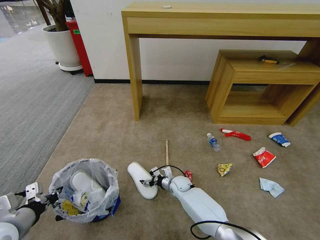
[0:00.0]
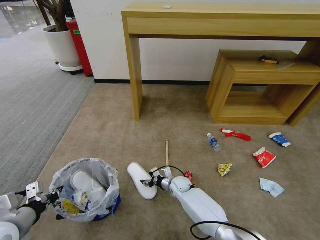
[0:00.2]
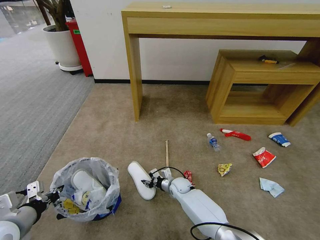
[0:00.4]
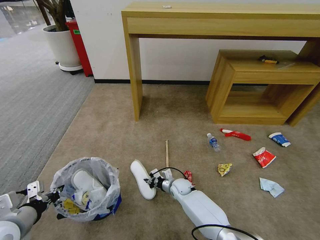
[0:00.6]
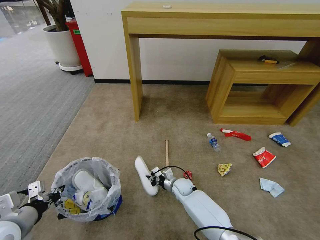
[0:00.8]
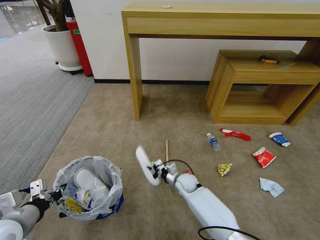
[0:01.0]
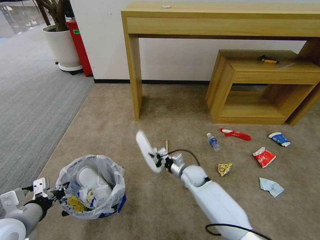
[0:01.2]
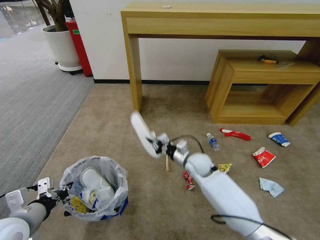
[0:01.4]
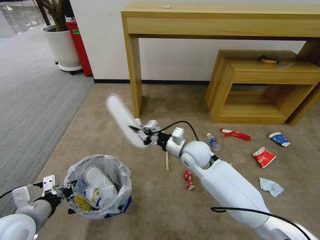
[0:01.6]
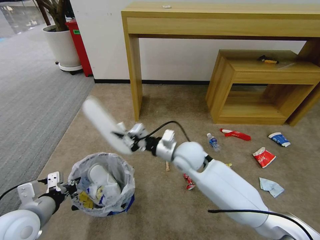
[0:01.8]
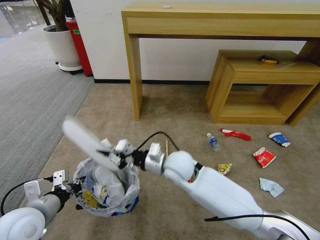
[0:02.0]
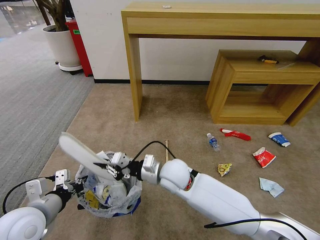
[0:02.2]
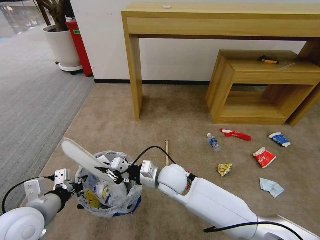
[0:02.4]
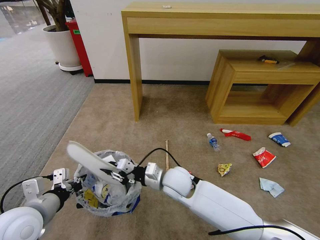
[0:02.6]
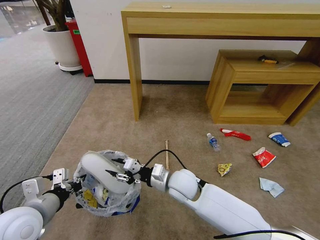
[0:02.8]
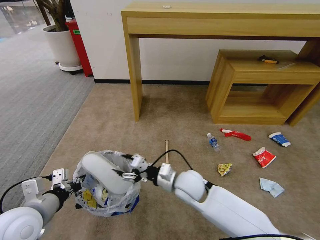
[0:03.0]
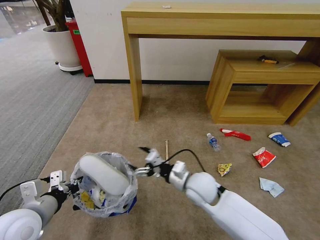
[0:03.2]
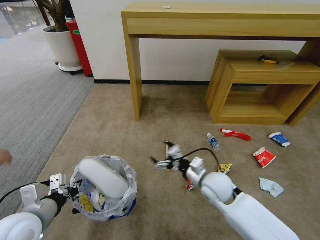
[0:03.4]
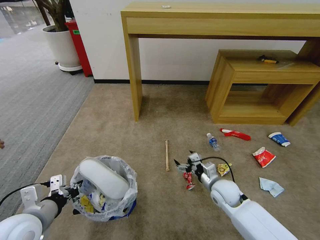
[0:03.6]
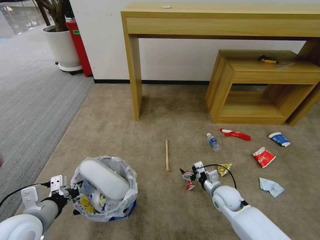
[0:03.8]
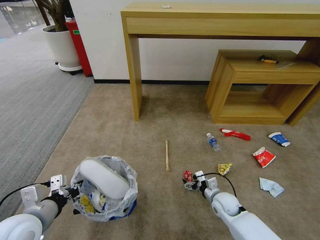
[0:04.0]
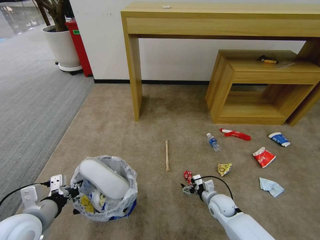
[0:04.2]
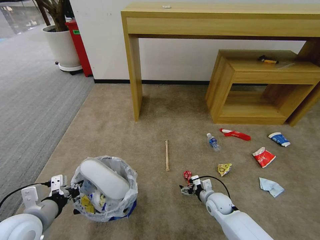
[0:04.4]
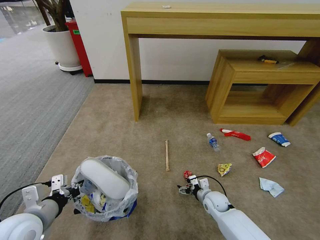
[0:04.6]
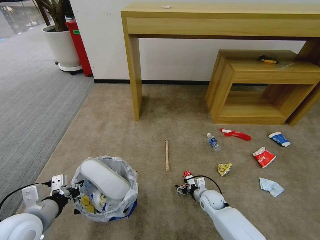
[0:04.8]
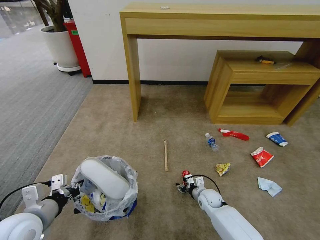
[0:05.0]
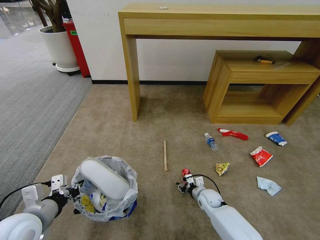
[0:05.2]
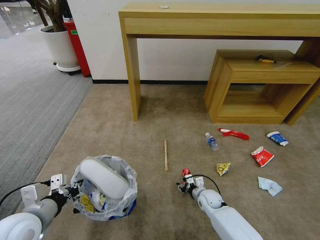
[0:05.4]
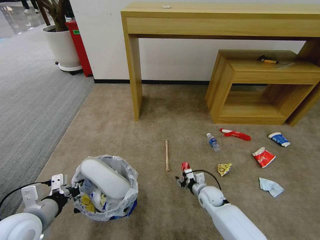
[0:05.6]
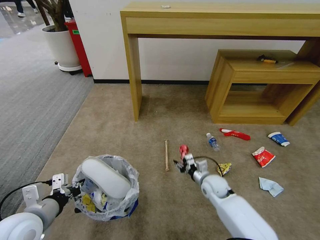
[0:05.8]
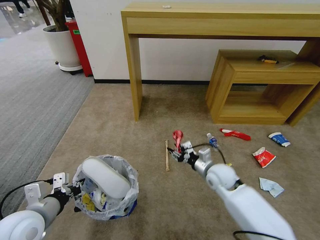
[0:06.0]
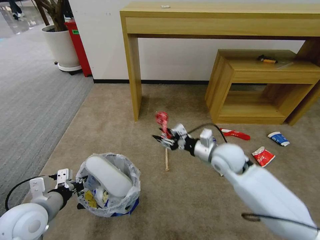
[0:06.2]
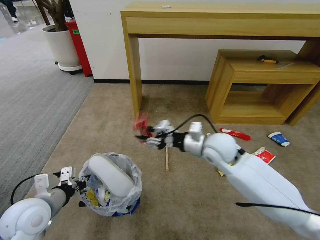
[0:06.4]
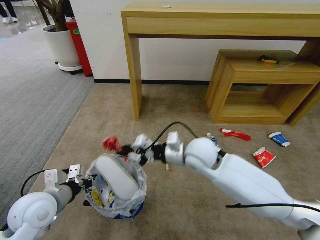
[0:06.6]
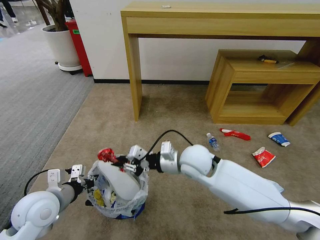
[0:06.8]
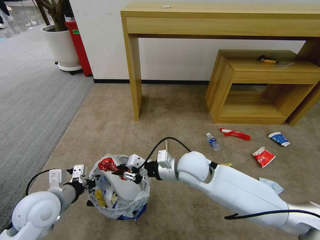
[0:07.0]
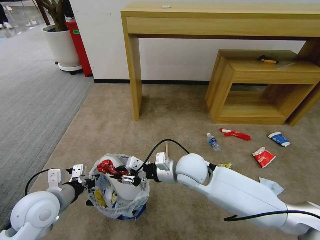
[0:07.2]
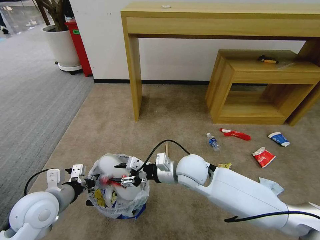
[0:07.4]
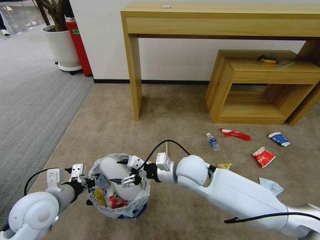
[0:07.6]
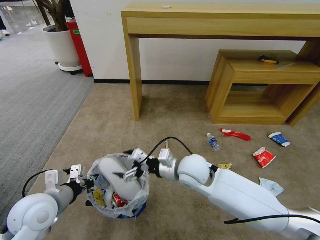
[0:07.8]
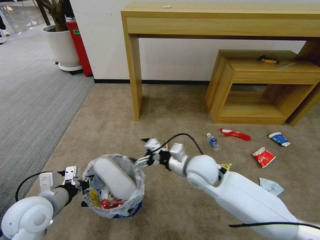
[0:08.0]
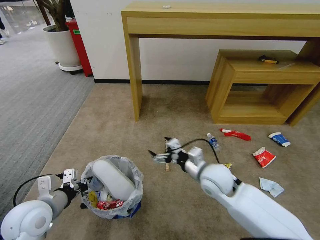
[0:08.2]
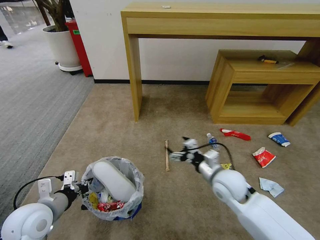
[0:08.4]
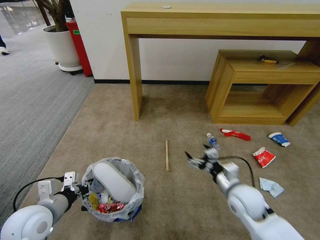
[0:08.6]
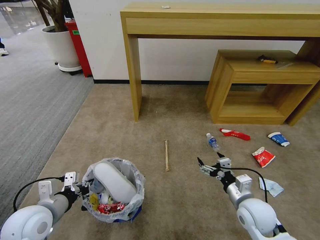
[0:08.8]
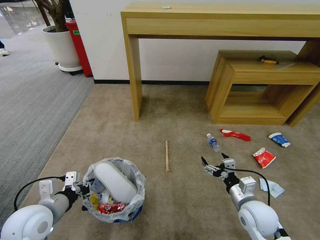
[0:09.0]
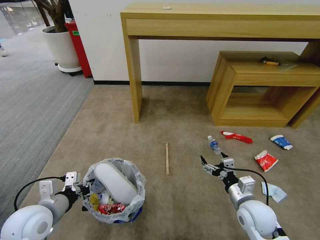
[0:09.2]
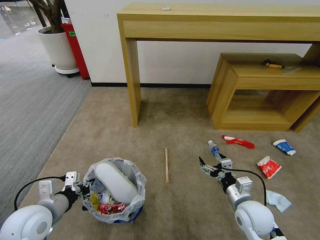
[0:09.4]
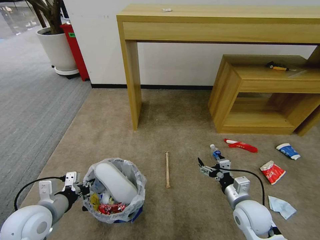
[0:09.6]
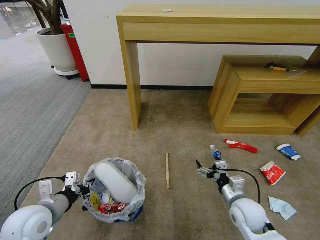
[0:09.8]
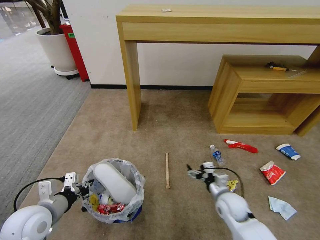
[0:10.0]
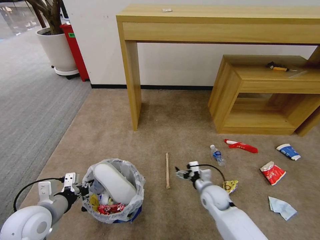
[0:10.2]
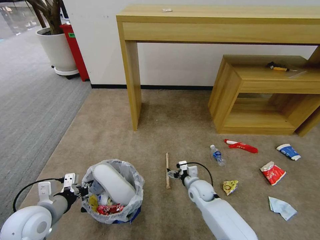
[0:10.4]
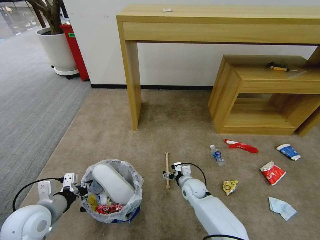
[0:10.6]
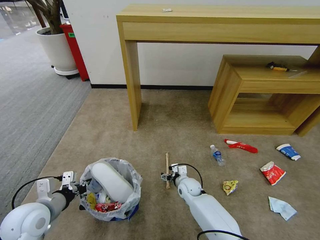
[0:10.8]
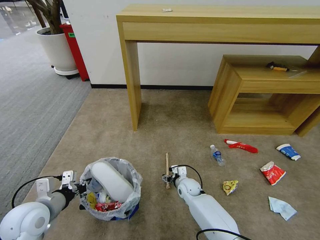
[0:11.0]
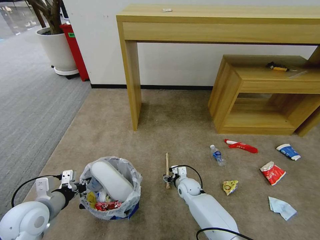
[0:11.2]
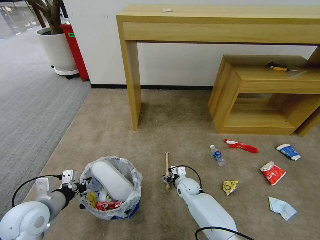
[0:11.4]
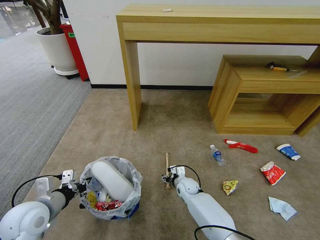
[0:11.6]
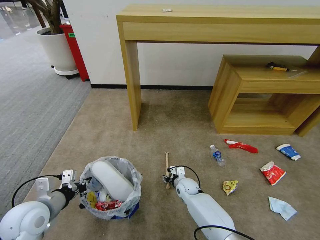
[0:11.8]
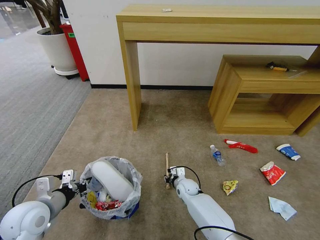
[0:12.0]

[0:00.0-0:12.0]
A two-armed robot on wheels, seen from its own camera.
Task of the whole recording: Pick up the trash bin and place the garbage on the floor into it.
0:00.0 to 0:01.6: The right gripper shifts about 25 cm upward, and closes up.
0:01.6 to 0:03.0: The right gripper shifts approximately 10 cm backward, and opens up.
0:03.0 to 0:04.4: The right gripper goes some 25 cm downward and to the right.
0:04.4 to 0:06.0: The right gripper is displaced upward by roughly 15 cm, and closes up.
0:06.0 to 0:07.6: The right gripper moves to the left and upward, some 15 cm.
0:07.6 to 0:09.0: The right gripper shifts about 25 cm to the right, downward and backward.
0:09.0 to 0:10.4: The right gripper moves to the left, forward and downward, some 20 cm.
0:10.4 to 0:12.0: The right gripper heads downward, covering roughly 5 cm, and closes up.

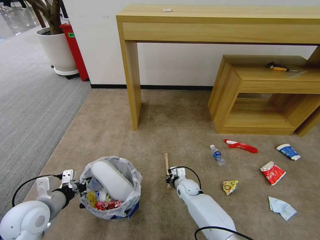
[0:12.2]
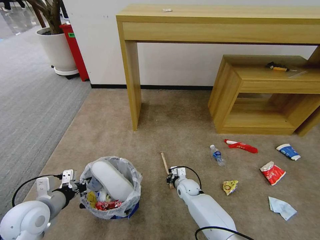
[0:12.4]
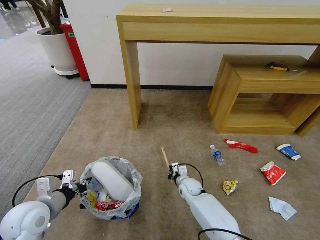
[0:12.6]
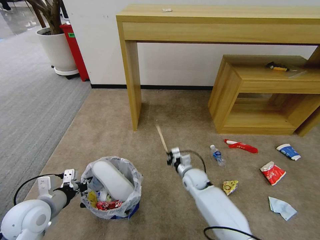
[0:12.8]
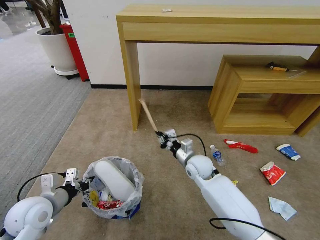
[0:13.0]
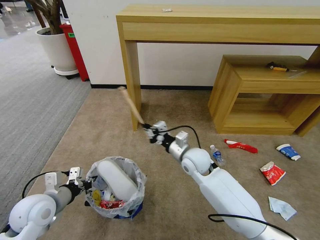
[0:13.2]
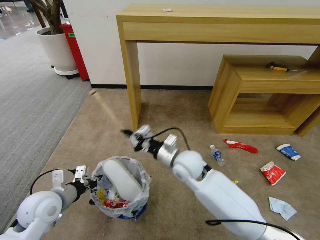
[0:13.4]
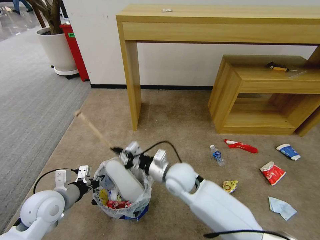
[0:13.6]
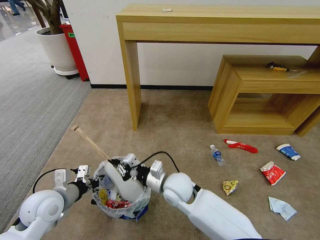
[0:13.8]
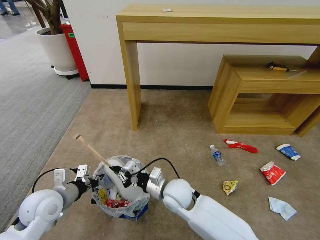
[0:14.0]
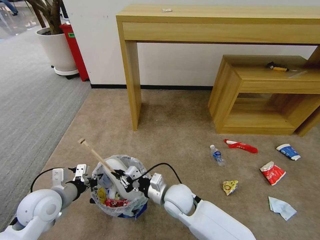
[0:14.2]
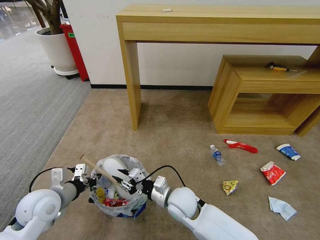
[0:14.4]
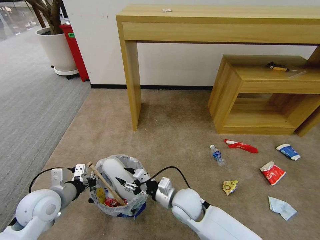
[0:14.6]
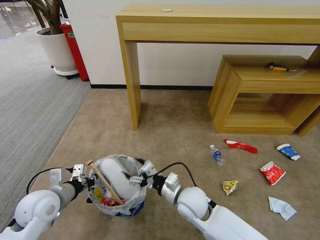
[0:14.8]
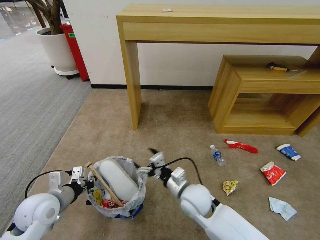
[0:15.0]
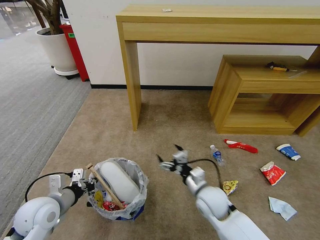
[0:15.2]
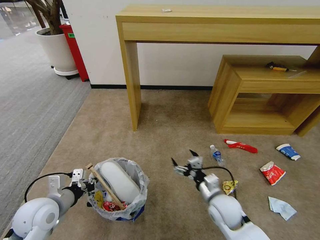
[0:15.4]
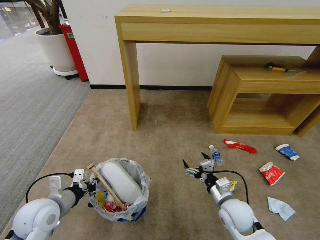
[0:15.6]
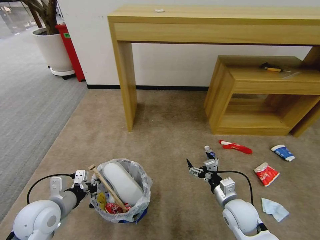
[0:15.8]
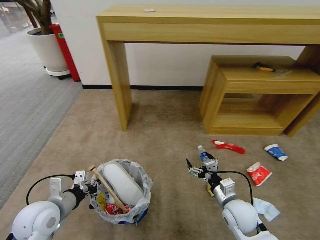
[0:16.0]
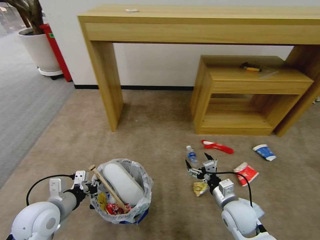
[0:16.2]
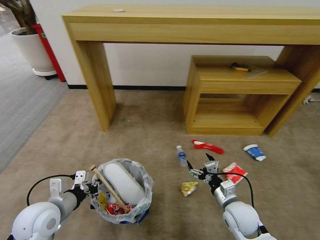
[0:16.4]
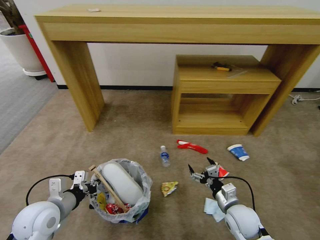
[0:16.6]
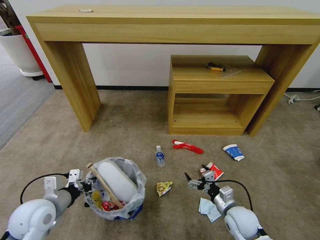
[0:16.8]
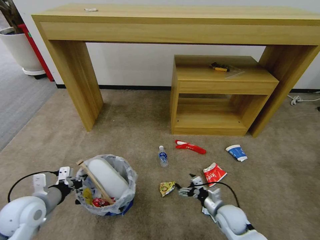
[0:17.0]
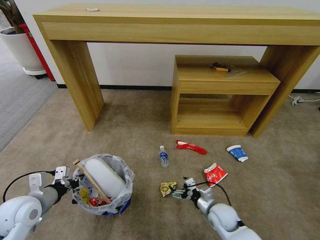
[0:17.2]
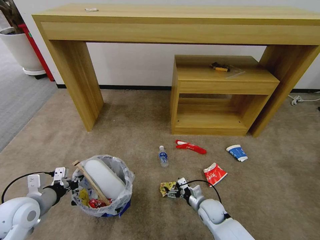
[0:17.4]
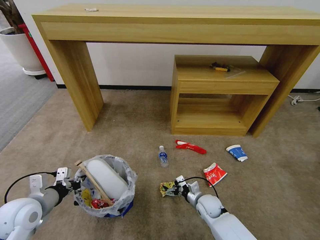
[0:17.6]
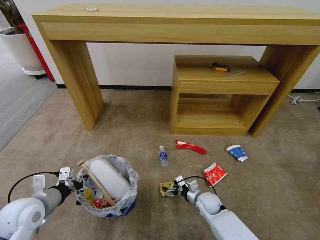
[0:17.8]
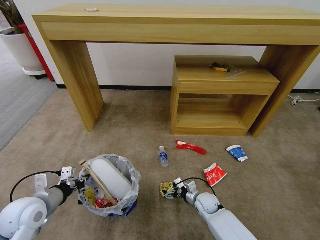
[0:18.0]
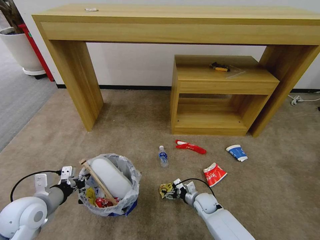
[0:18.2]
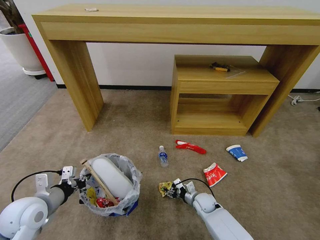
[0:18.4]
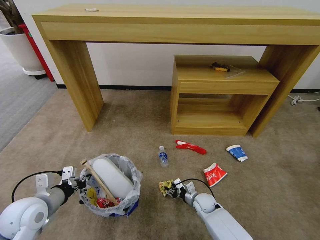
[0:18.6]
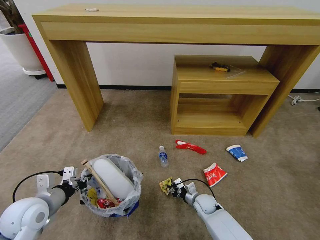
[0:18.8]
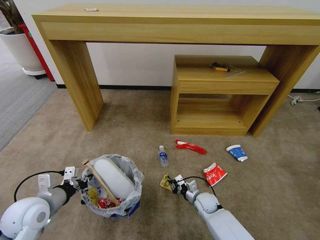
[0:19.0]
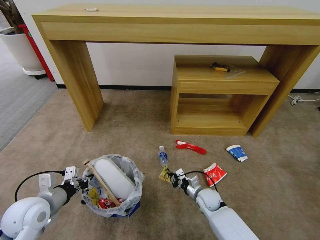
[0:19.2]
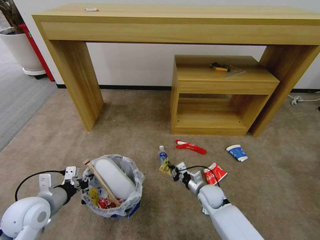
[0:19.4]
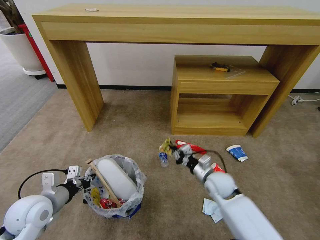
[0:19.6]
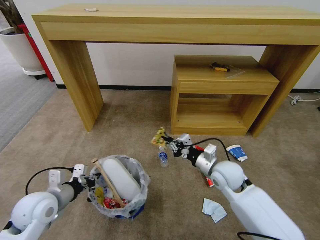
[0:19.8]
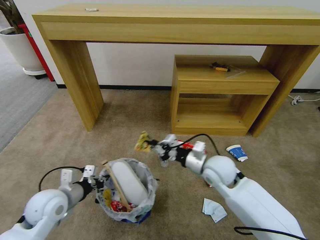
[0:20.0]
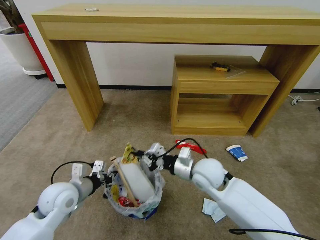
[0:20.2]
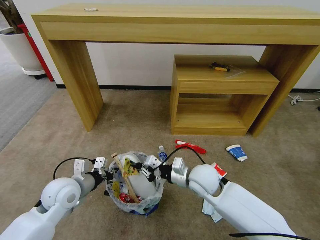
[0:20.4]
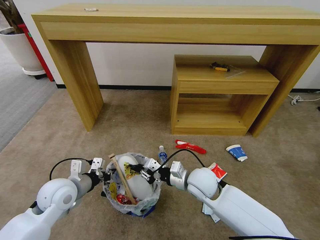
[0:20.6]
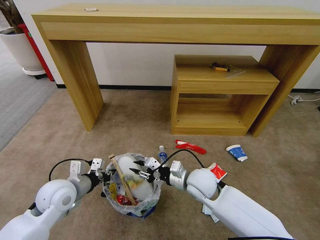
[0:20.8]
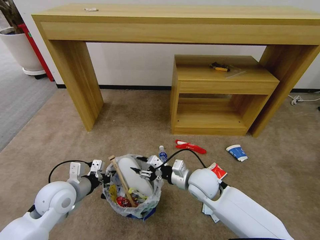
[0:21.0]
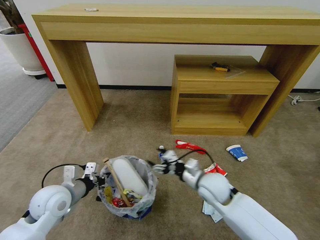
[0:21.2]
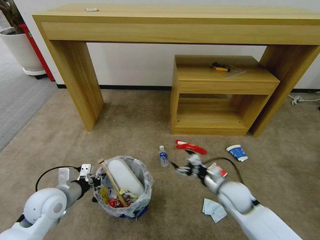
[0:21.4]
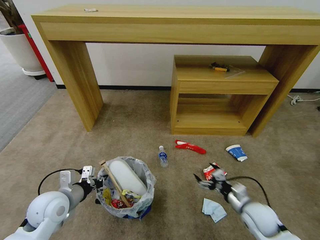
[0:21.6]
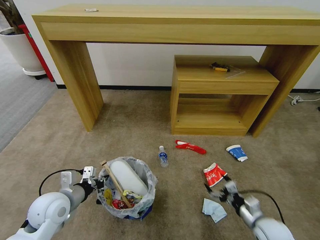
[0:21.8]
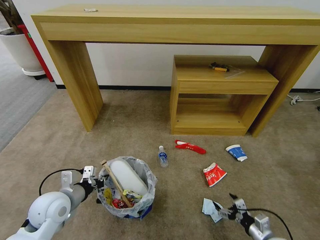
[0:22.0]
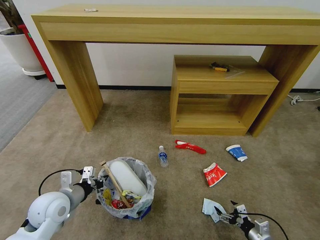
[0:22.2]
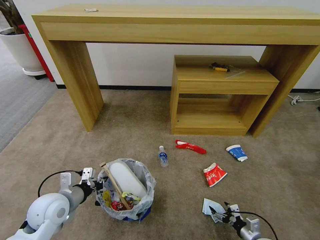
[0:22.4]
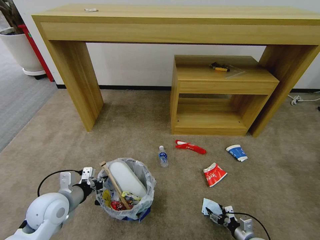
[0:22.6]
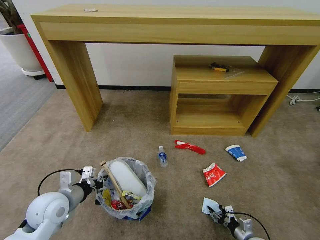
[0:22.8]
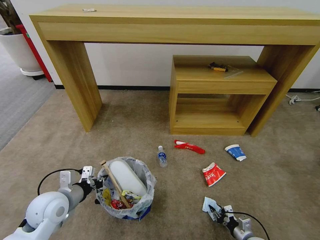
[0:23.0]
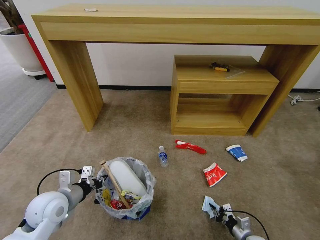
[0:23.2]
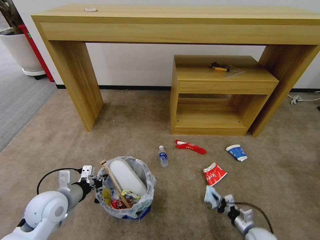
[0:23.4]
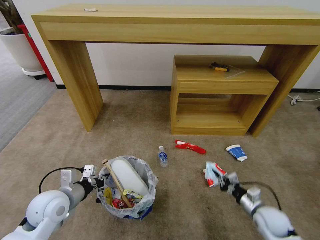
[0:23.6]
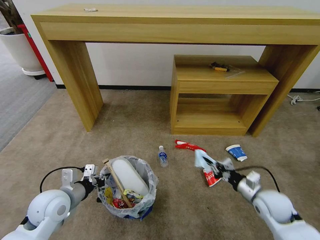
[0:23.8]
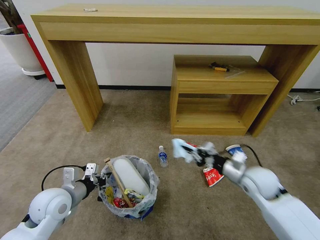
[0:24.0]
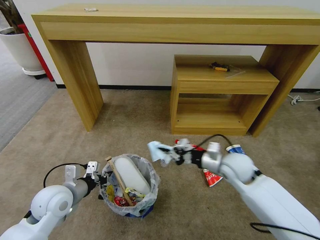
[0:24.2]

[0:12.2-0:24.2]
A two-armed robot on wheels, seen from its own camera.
Task of the whole recording: Pick up the trash bin and place the garbage on the floor into it.
0:12.2 to 0:13.8: The right gripper goes some 20 cm upward and backward.
0:13.8 to 0:15.2: The right gripper travels to the right by about 10 cm, and opens up.
0:15.2 to 0:16.6: The right gripper is displaced to the right by approximately 10 cm.
0:16.6 to 0:18.2: The right gripper moves downward, forward and to the left, some 20 cm.
0:18.2 to 0:19.8: The right gripper travels upward by approximately 25 cm, and closes.
0:19.8 to 0:21.2: The right gripper shifts by roughly 5 cm, and opens.
0:21.2 to 0:22.6: The right gripper goes approximately 35 cm downward, to the right and backward.
0:22.6 to 0:24.2: The right gripper shifts some 40 cm upward, forward and to the left, and closes.
